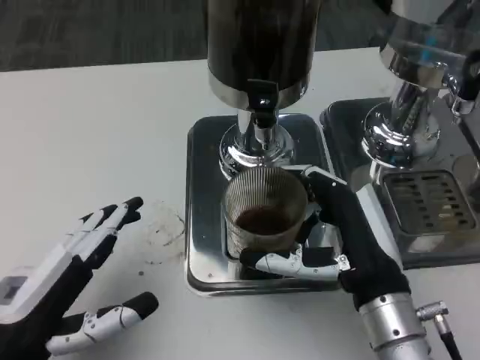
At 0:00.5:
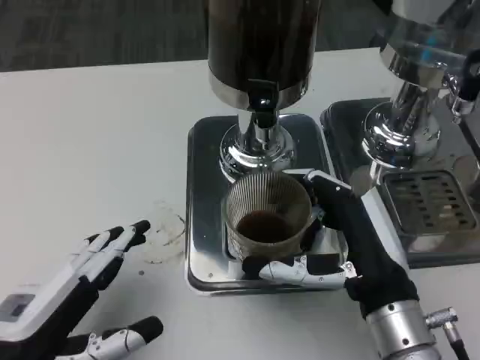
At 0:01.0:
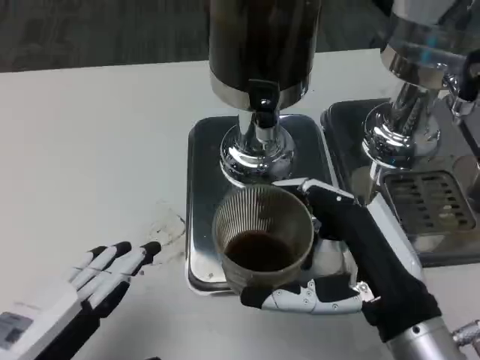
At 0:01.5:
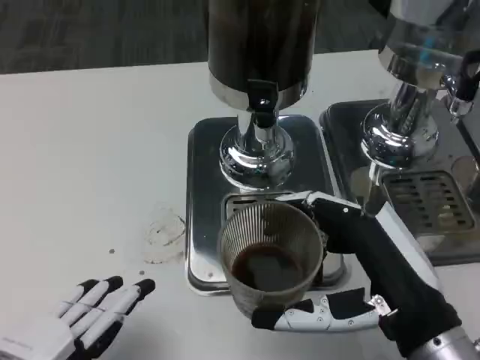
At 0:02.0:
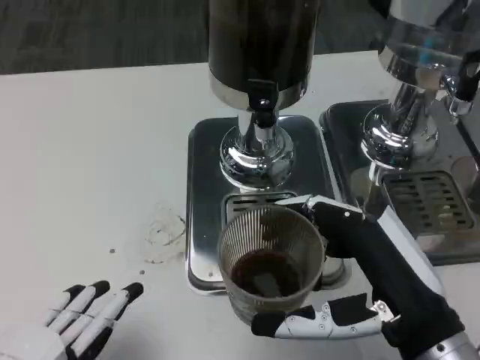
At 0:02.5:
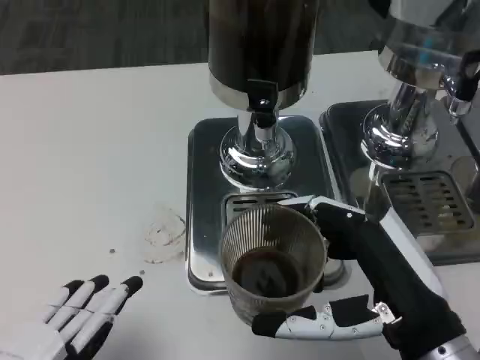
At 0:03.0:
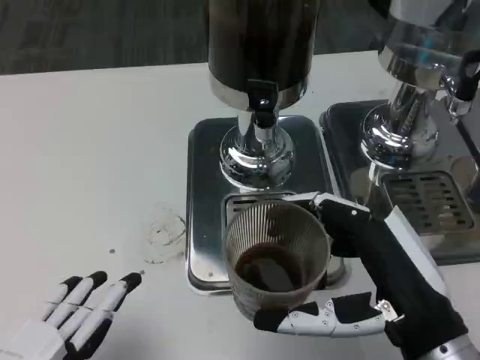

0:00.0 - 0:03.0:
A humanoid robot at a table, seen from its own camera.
Task of the whole recording: Grasp the cup under the faucet to collect the drink, then remove the cup.
0:00.0 - 0:01.5: The hands both shift backward by roughly 5 cm.
0:01.5 - 0:03.0: There are only small adjustments of the hands.

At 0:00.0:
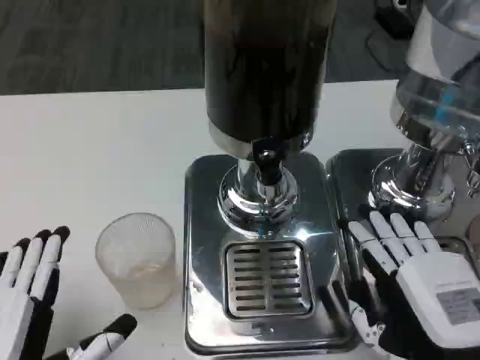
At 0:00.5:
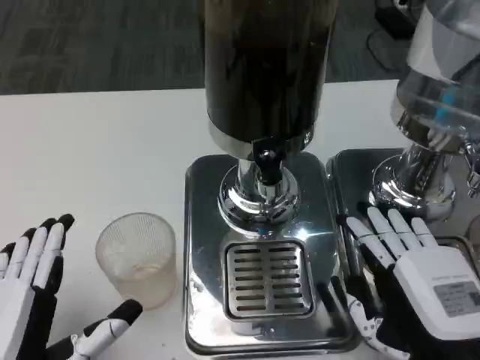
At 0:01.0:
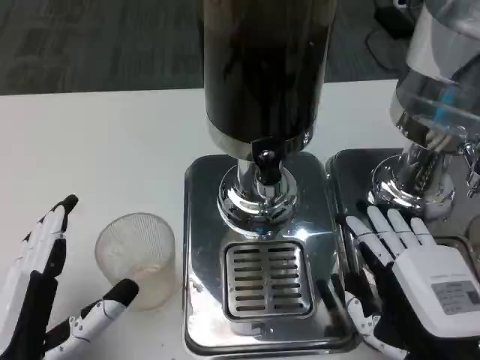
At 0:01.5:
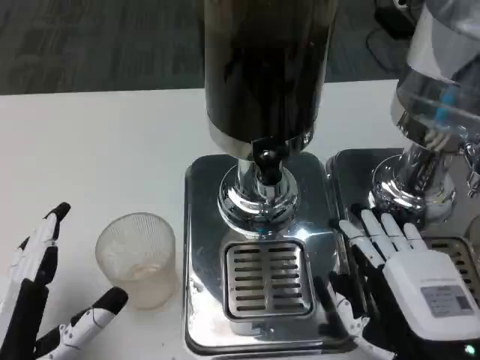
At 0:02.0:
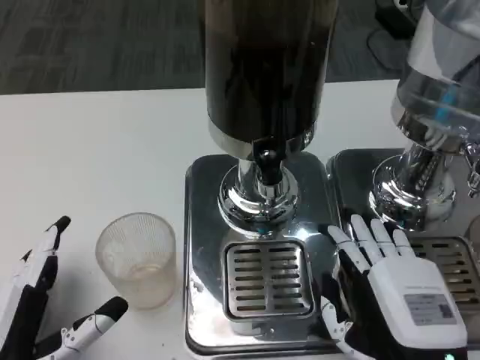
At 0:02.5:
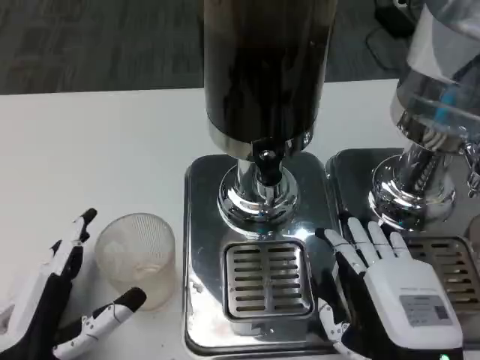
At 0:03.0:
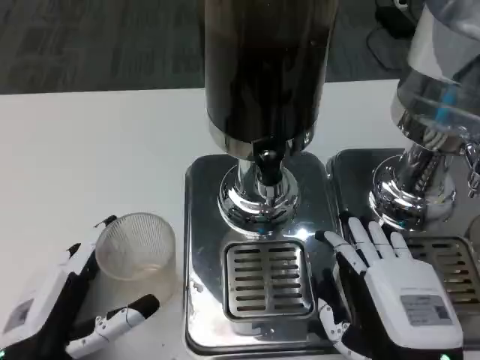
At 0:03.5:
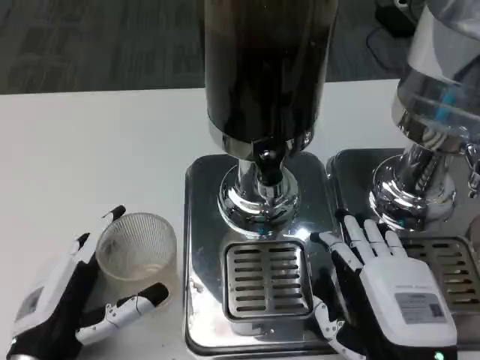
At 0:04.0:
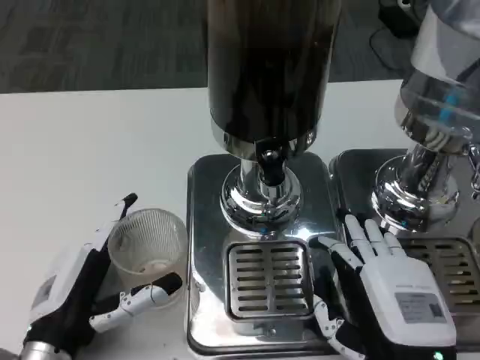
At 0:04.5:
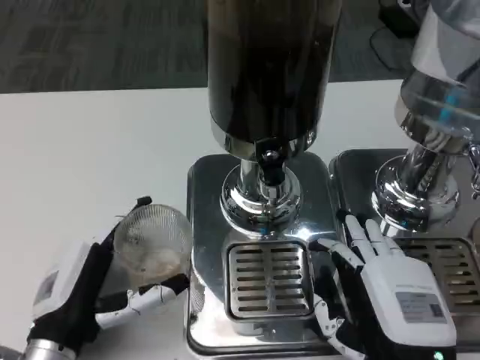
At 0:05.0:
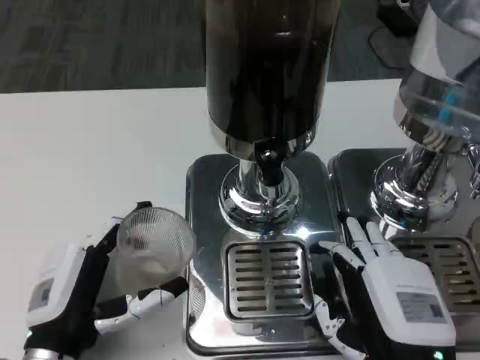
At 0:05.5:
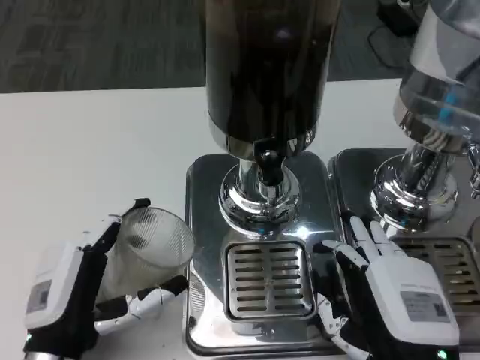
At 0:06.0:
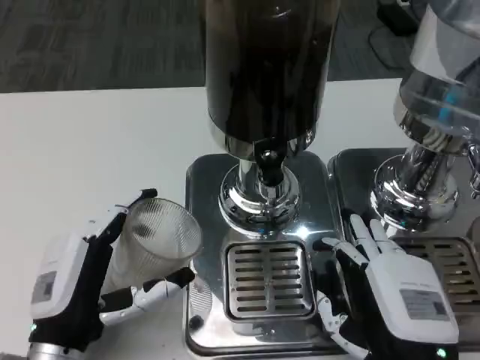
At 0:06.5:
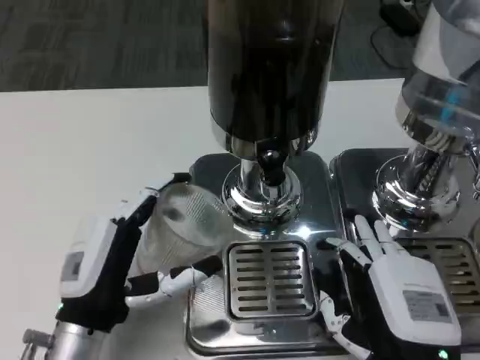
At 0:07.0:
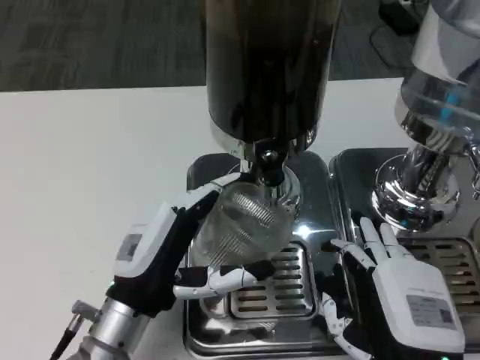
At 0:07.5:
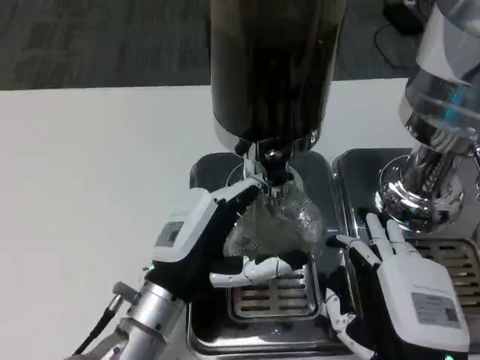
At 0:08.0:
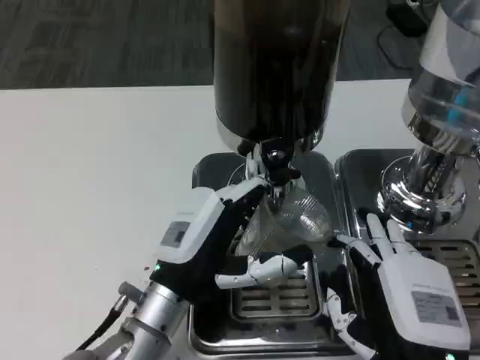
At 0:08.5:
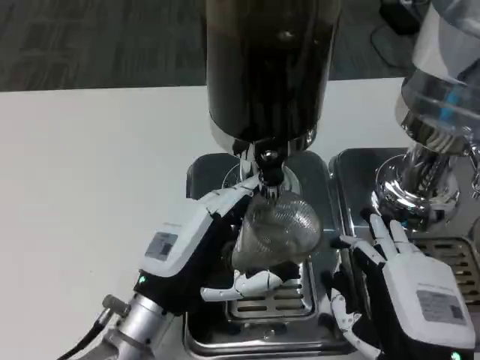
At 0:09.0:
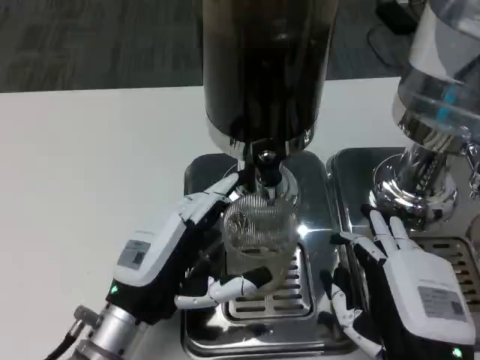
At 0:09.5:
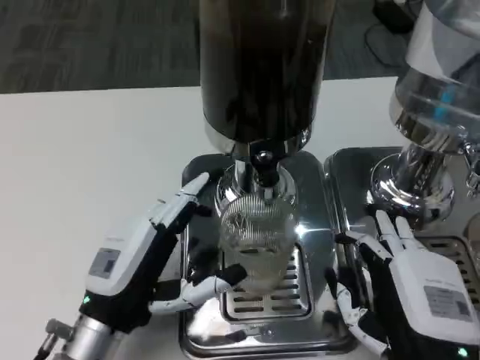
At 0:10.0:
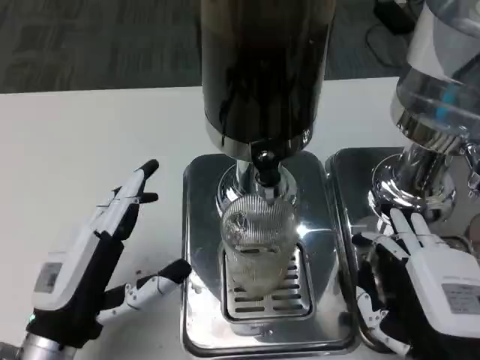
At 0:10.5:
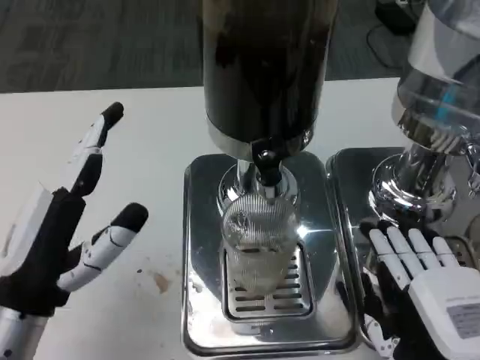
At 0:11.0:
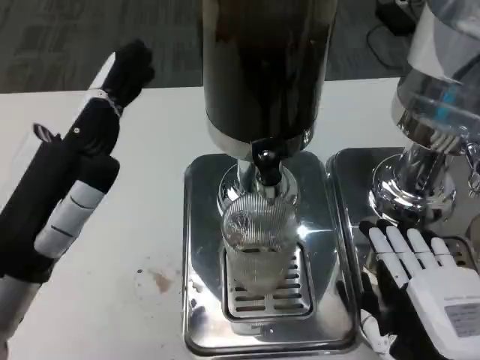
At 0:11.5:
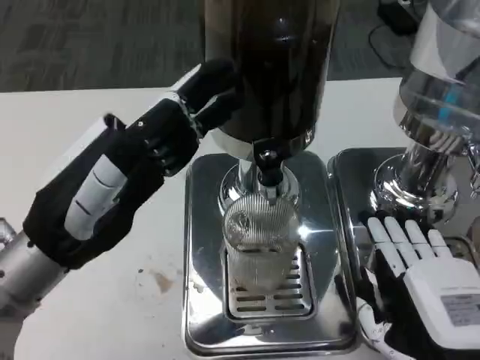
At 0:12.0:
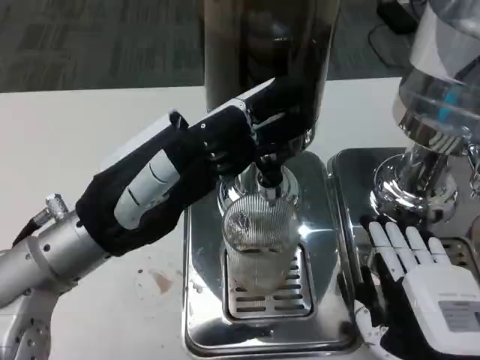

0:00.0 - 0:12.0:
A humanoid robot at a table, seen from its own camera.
Task of the whole recording: Grasp the cup under the faucet to collect the drink, then remove the cup.
0:00.0 - 0:02.0: The left hand ends up approximately 5 cm from where it was.
0:02.0 - 0:04.0: The left hand is displaced forward by about 5 cm.
0:04.0 - 0:06.0: The hands stay close to where they were, moving slightly.
0:06.0 - 0:08.0: The left hand is displaced to the right and forward by roughly 10 cm.
0:08.0 - 0:10.0: The left hand heads to the left and backward, covering some 10 cm.
0:10.0 - 0:12.0: The left hand shifts some 15 cm upward and forward.

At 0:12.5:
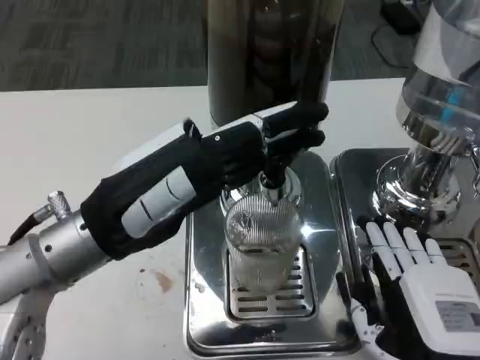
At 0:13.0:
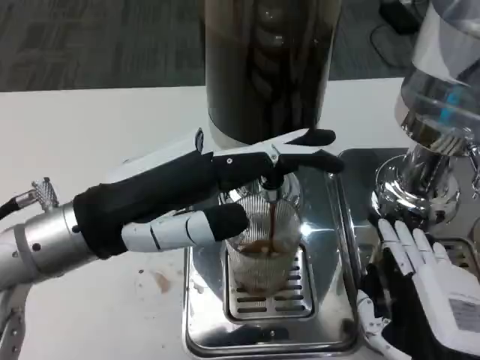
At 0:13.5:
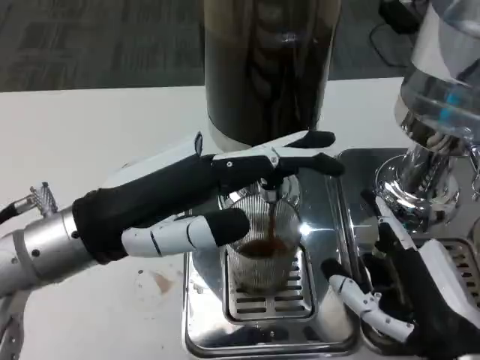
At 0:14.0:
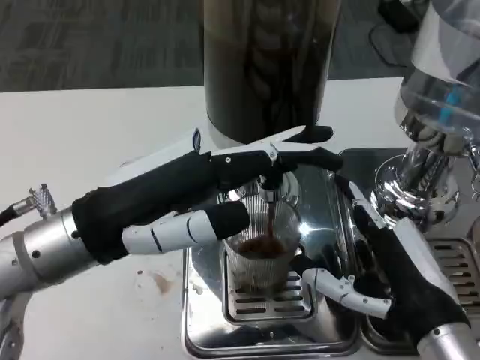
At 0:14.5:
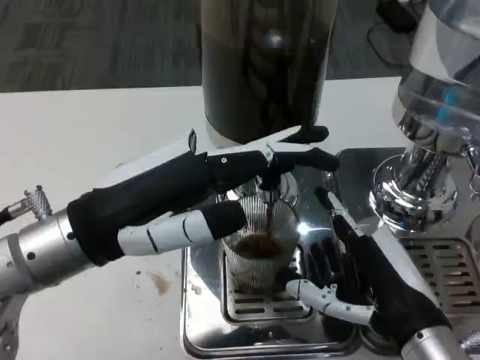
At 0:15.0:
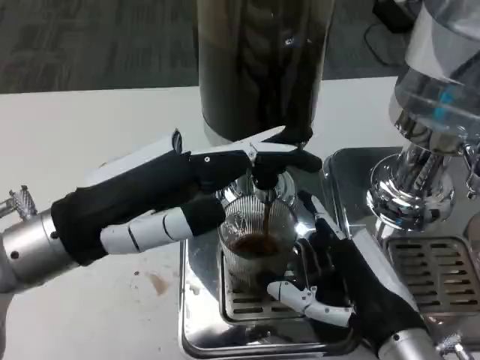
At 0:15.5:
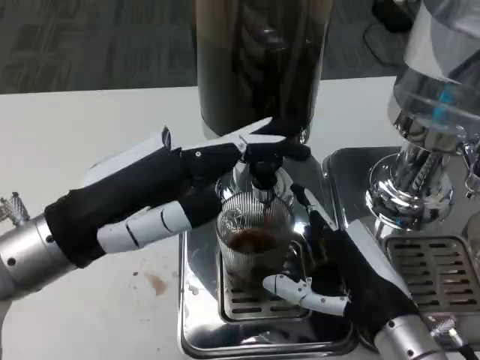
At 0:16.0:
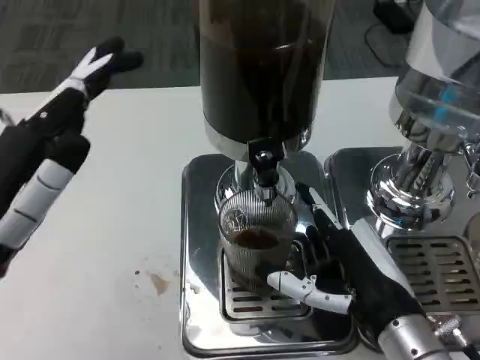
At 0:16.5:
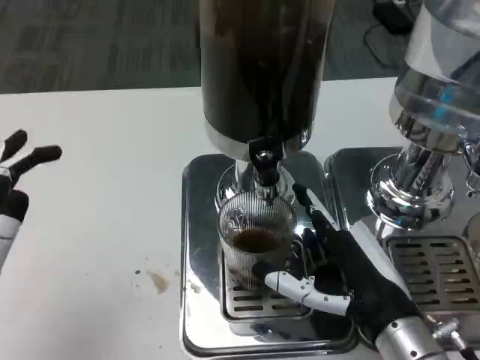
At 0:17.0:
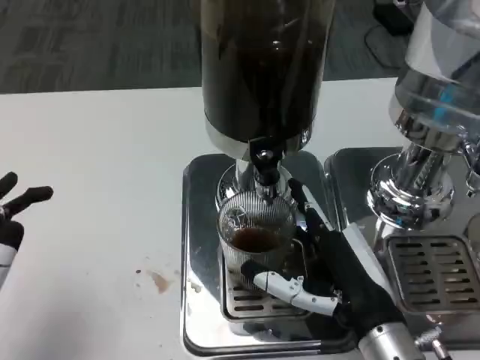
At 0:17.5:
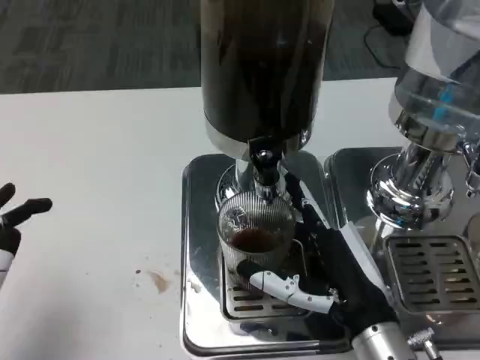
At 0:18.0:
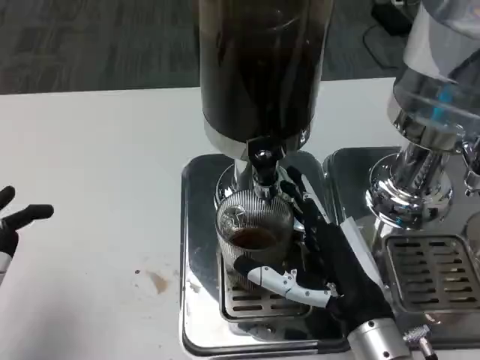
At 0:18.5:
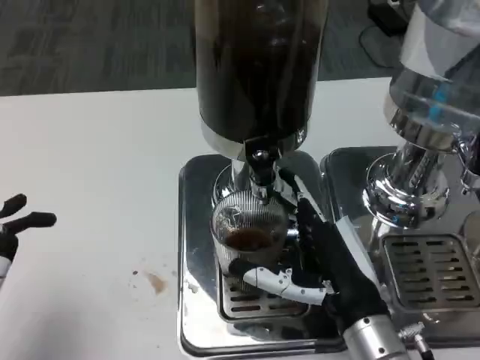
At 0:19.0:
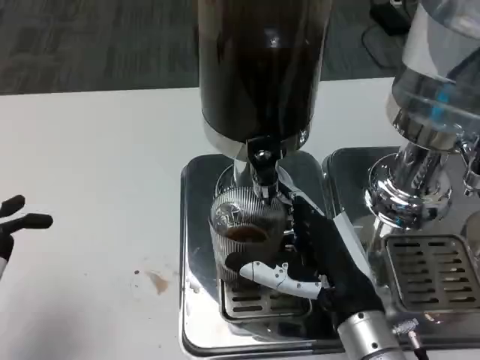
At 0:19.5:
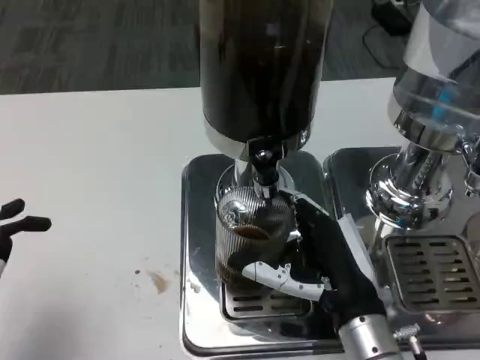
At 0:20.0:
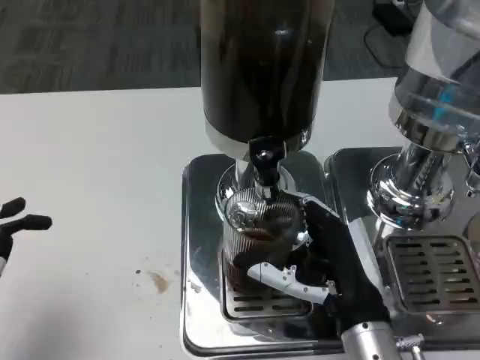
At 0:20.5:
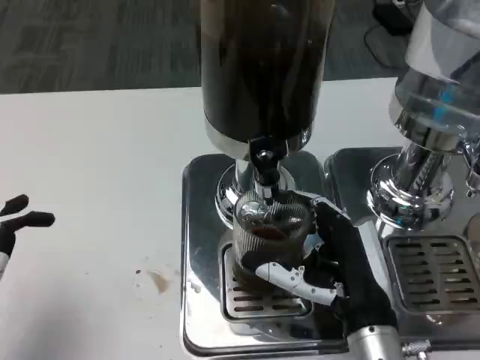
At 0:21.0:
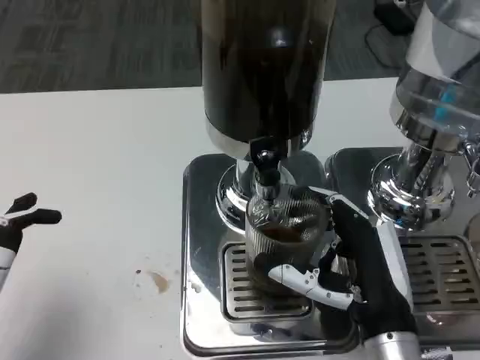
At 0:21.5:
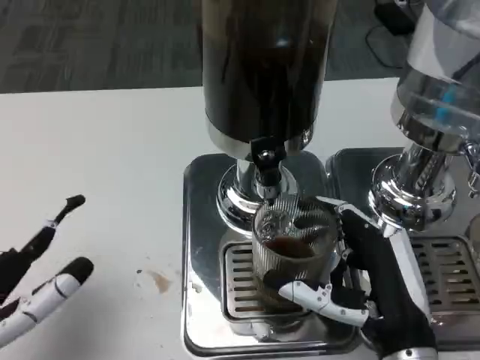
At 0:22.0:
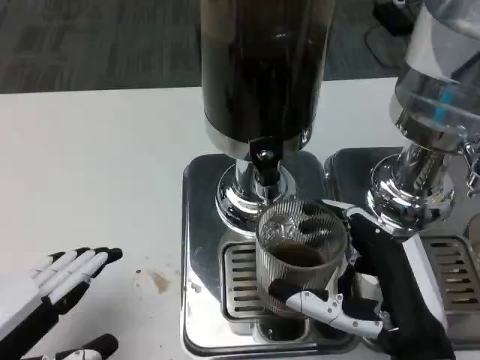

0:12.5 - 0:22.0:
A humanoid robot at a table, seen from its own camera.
Task of the whole recording: Grasp the cup under the faucet to collect the drink, then remove the cup.
0:12.5 - 0:14.5: The right hand shifts by some 5 cm.
0:14.5 - 0:16.5: The left hand travels backward, downward and to the left by roughly 15 cm.
0:16.5 - 0:20.0: The hands make only small movements.
0:20.0 - 0:22.0: The right hand shifts by some 5 cm.

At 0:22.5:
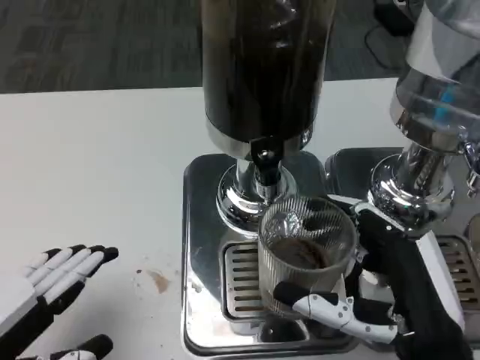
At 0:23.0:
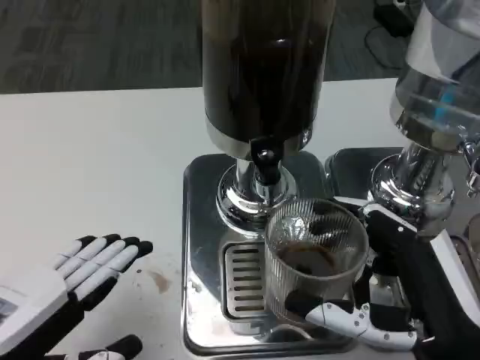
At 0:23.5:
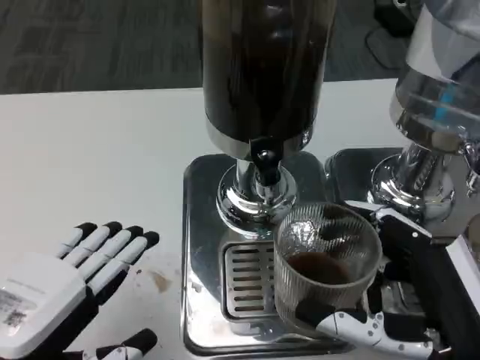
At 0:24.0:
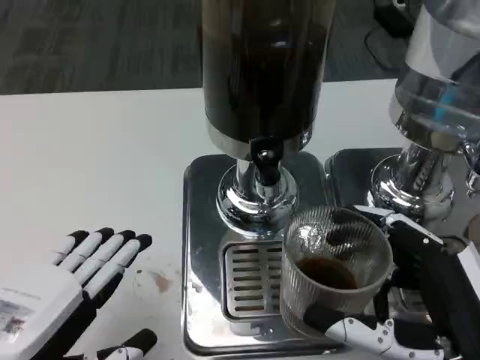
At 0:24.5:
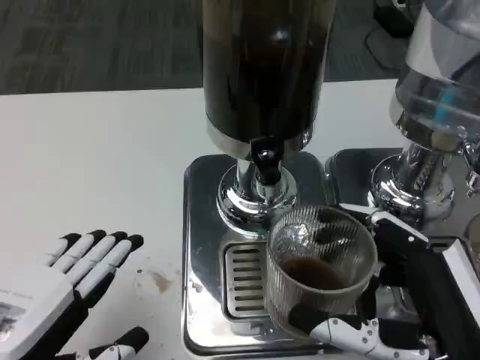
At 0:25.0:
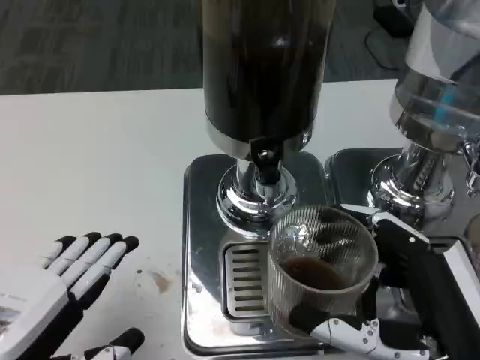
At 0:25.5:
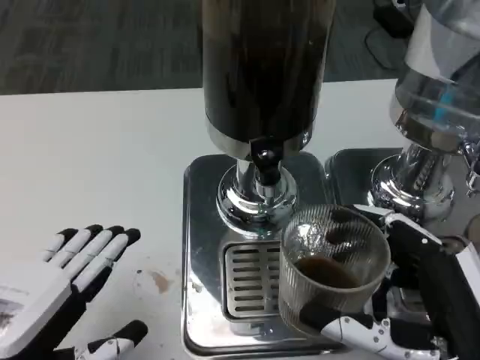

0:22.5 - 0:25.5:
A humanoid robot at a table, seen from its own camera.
Task of the whole recording: Grasp the cup under the faucet to collect the drink, then remove the cup.
0:22.5 - 0:24.0: The left hand goes approximately 5 cm to the right.
0:24.0 - 0:25.5: Both hands stay about where they are.
